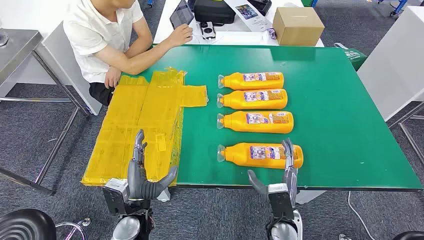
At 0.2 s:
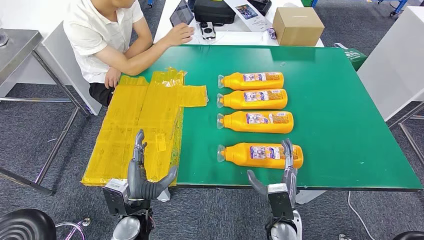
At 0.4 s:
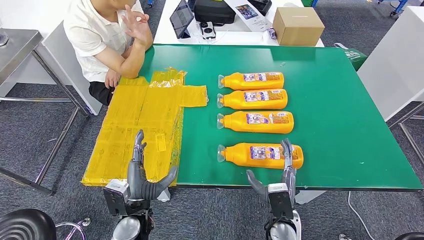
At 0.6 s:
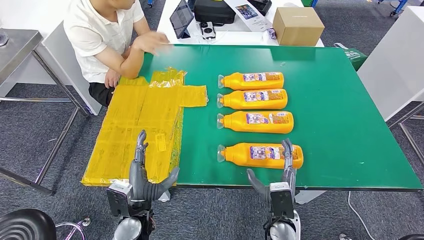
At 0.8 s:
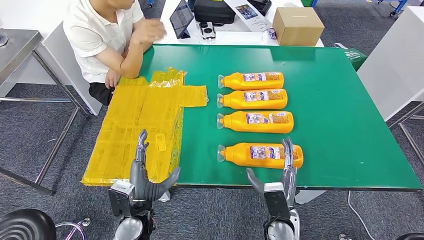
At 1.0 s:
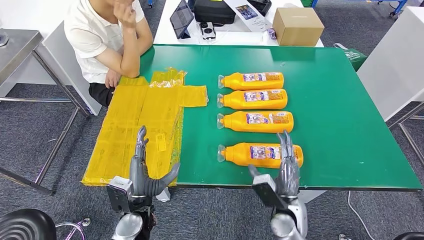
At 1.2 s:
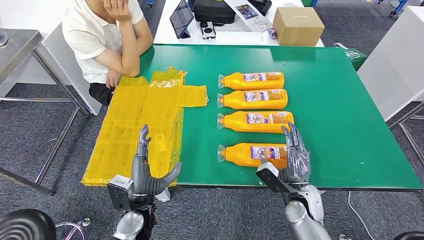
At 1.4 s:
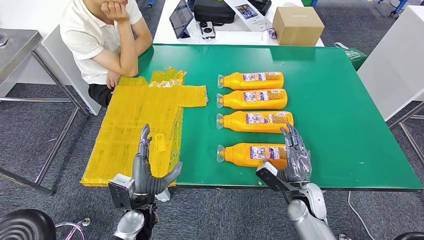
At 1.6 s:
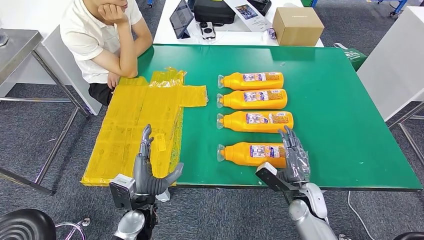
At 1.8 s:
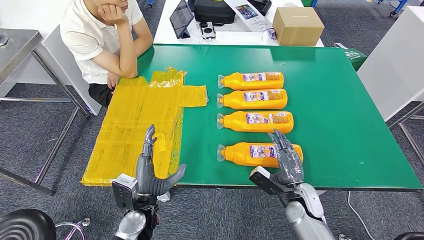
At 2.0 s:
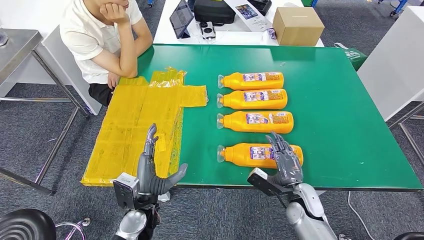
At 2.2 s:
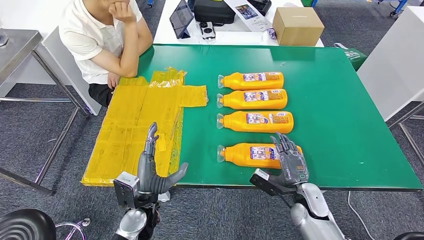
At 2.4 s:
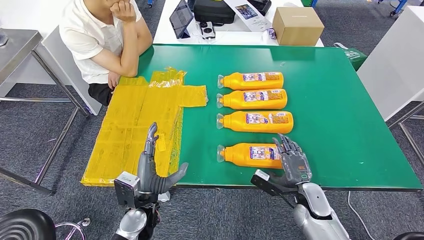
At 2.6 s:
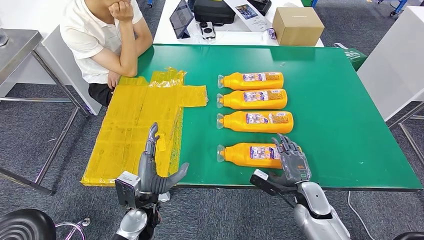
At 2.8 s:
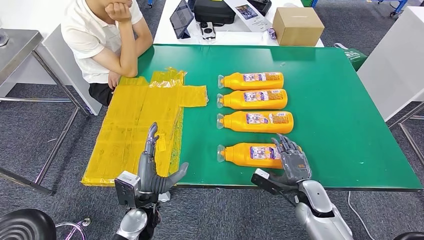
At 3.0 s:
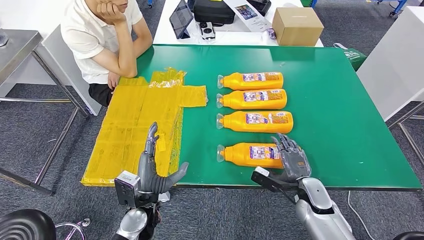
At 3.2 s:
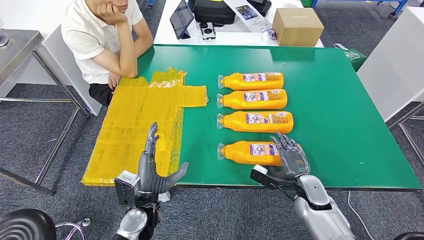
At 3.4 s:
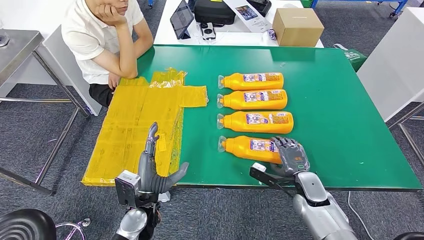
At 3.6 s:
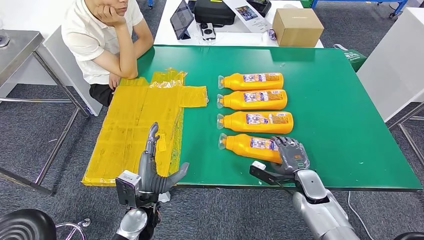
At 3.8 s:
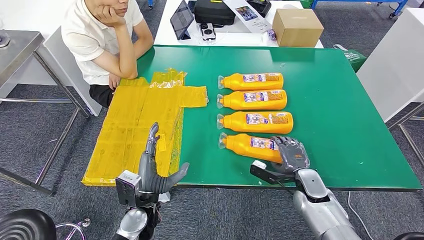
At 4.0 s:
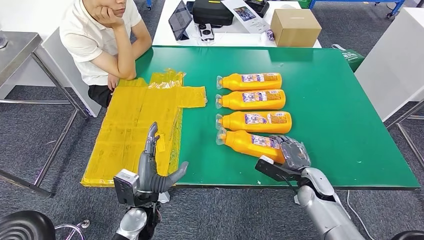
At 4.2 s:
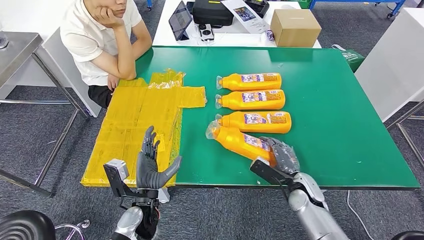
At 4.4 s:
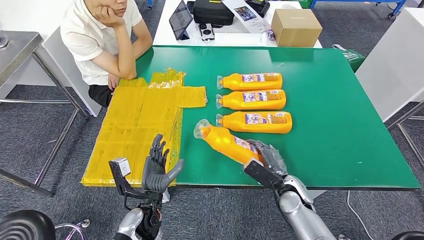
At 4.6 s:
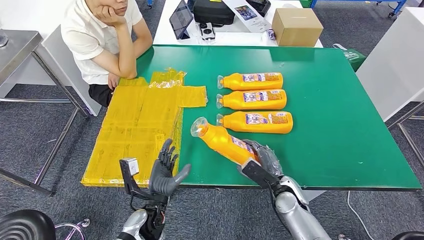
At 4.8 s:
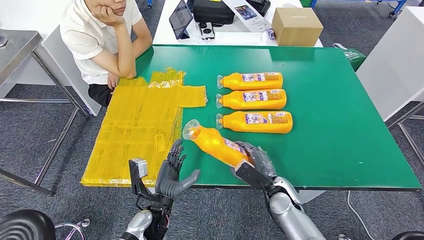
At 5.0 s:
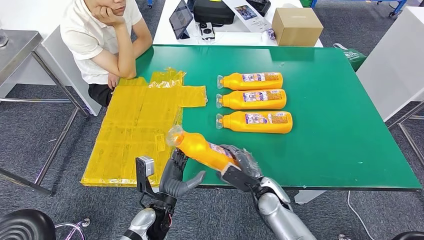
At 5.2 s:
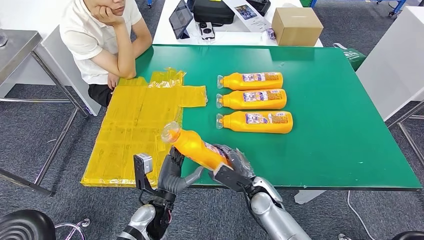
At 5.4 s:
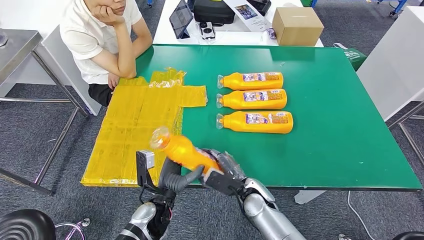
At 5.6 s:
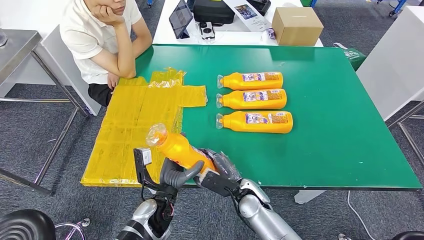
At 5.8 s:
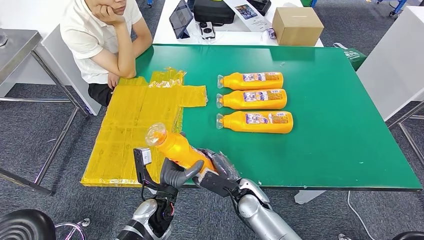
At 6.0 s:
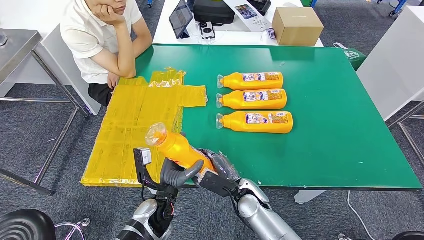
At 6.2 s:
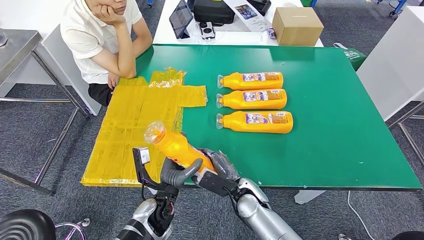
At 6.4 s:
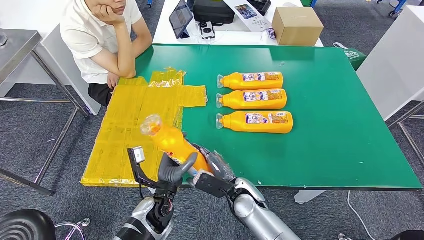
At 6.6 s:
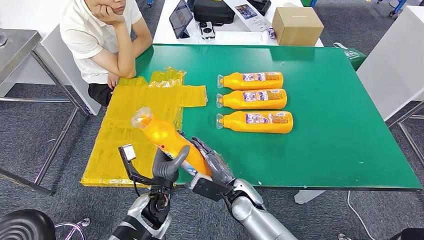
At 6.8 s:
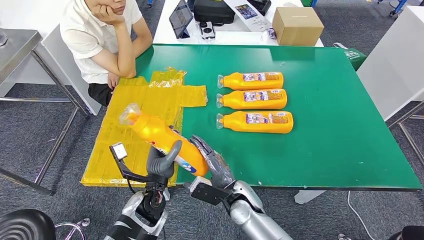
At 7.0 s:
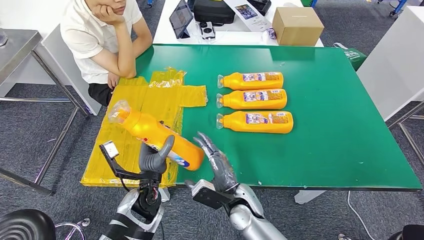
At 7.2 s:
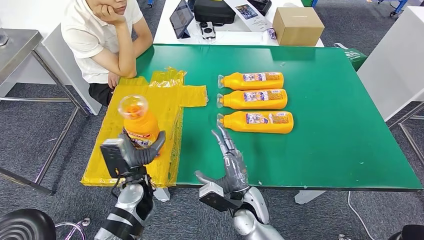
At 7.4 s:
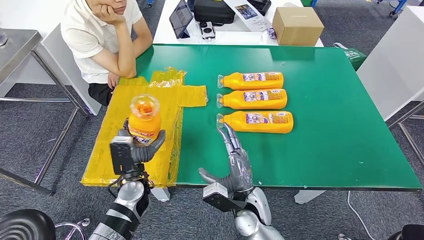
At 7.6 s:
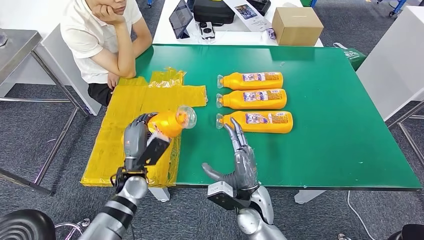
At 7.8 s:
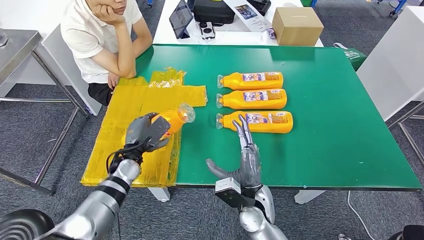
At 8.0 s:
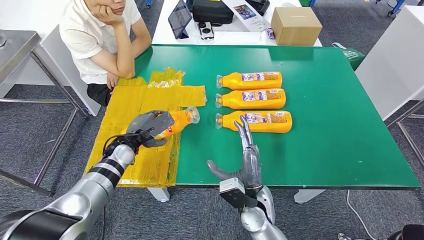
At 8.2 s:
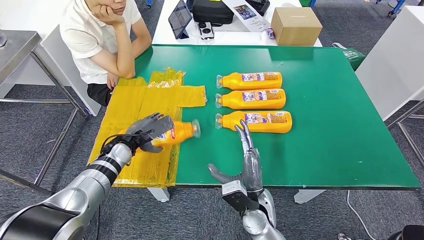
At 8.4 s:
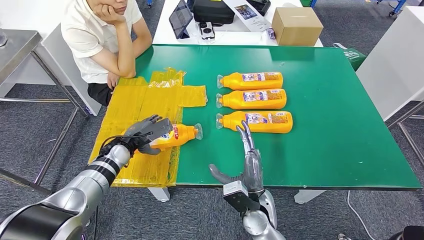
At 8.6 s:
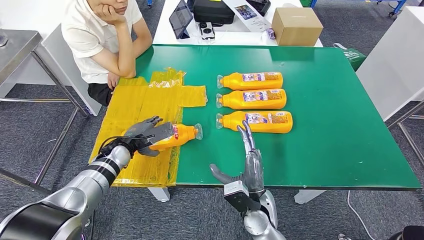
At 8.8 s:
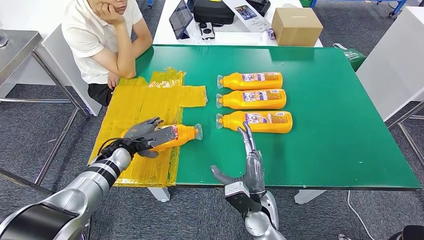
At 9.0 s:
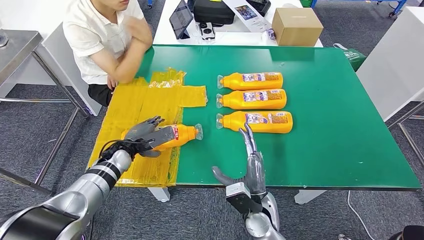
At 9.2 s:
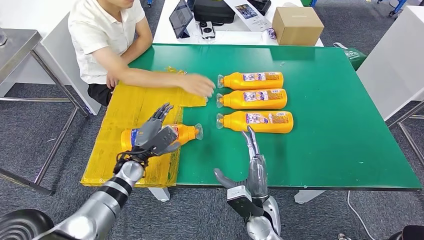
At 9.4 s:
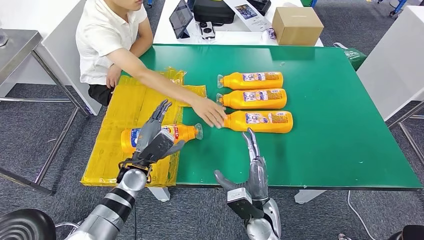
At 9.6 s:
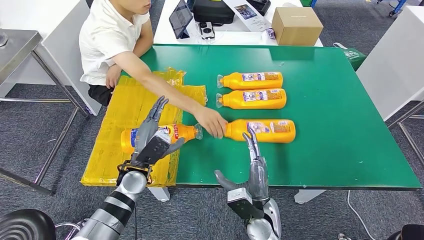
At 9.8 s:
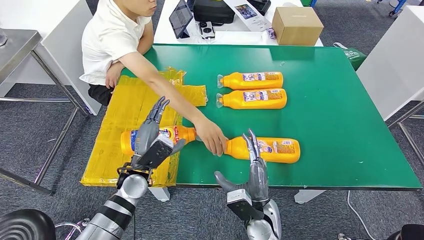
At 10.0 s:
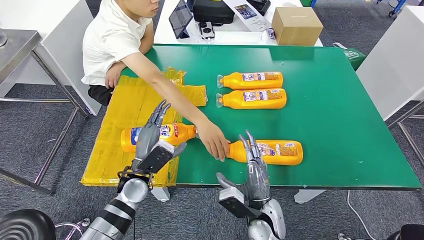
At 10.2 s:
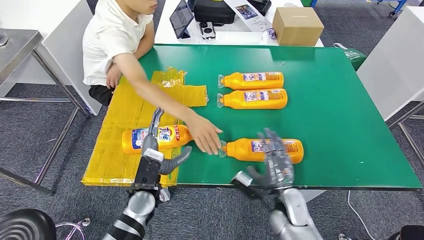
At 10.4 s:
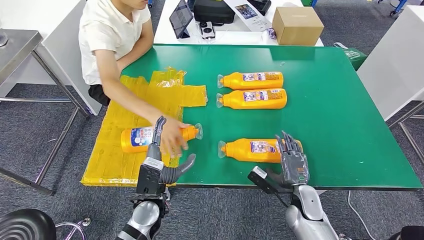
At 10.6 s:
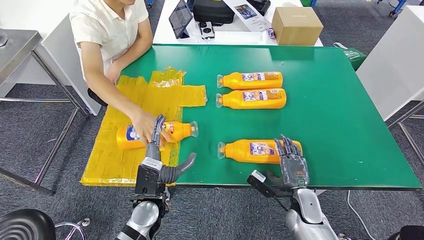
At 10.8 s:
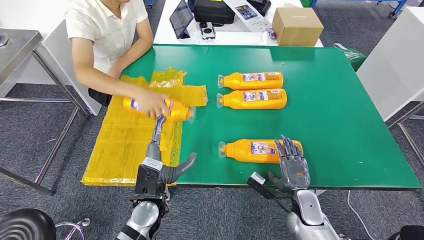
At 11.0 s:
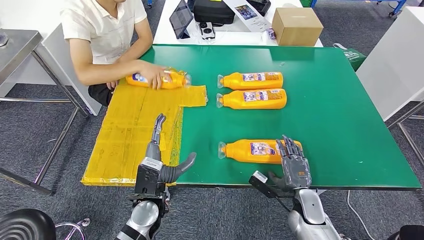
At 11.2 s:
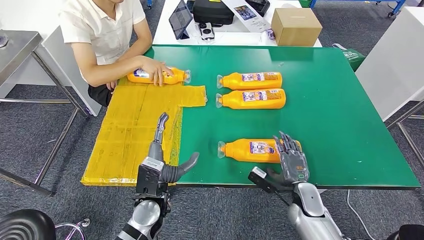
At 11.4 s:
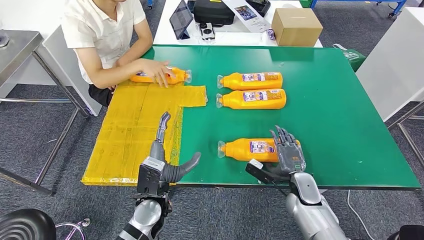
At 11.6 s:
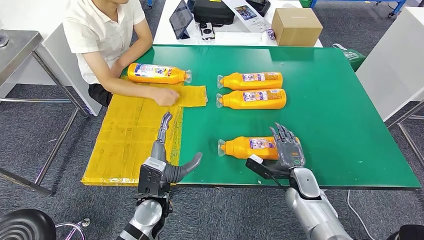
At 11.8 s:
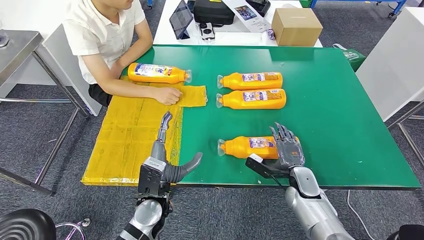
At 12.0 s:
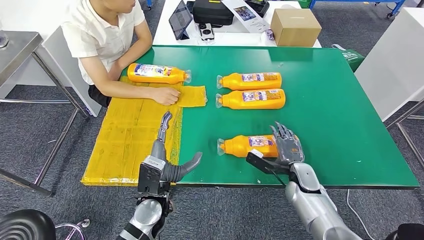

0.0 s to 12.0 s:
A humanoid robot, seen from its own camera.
Step, 0.0 to 5.8 s: Take the fast-moving consumer goods bottle from the table.
Step, 6.0 to 9.4 s: Flip the fast-moving consumer goods bottle to the front side.
3.0 to 4.4 s: The right hand travels to the left by approximately 5 cm.
4.4 to 6.0 s: The right hand heads to the left, covering some 15 cm.
6.0 to 7.6 s: The left hand goes approximately 10 cm to the left and forward; the right hand shifts by approximately 5 cm.
7.6 to 9.0 s: The left hand goes roughly 10 cm forward and to the left.

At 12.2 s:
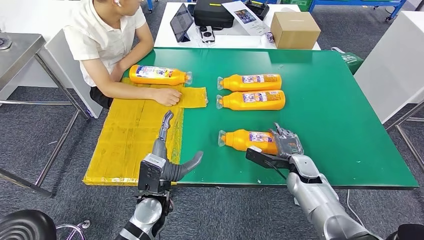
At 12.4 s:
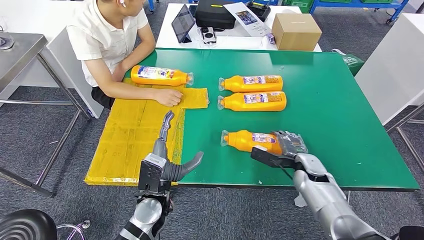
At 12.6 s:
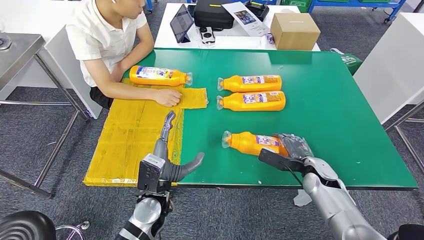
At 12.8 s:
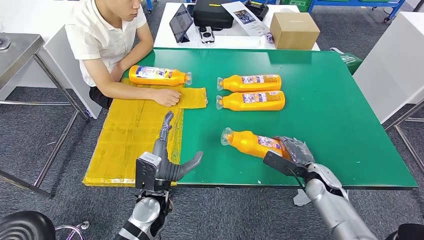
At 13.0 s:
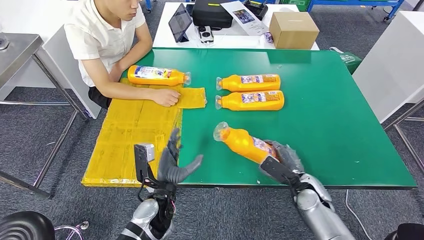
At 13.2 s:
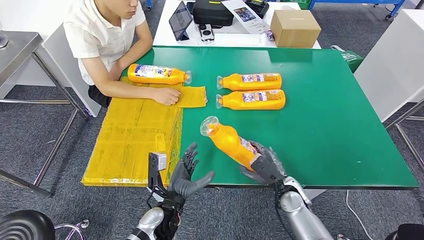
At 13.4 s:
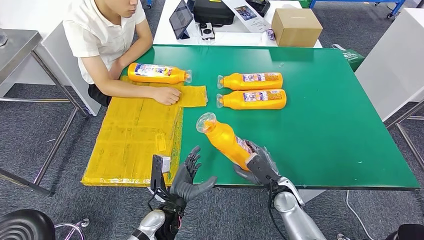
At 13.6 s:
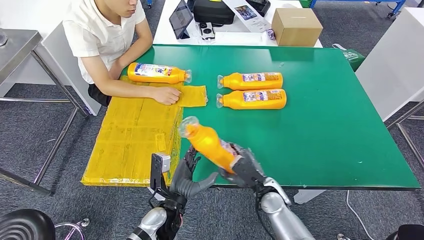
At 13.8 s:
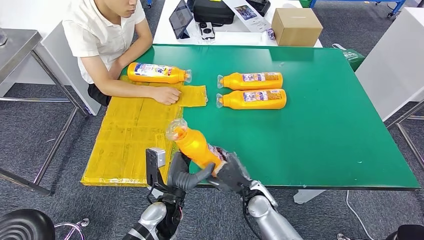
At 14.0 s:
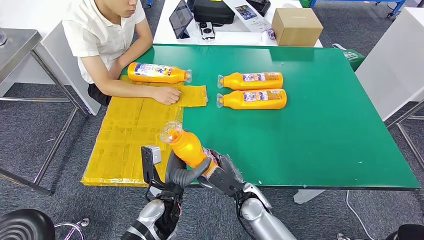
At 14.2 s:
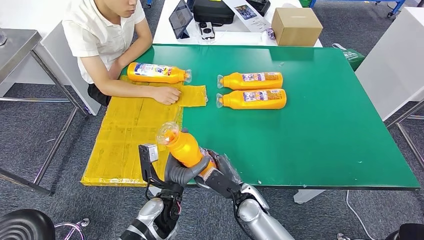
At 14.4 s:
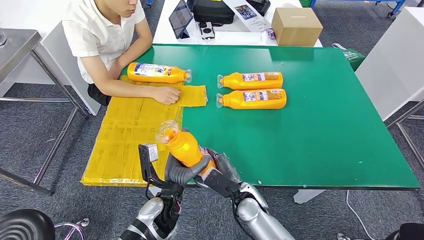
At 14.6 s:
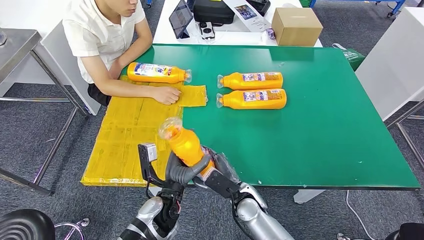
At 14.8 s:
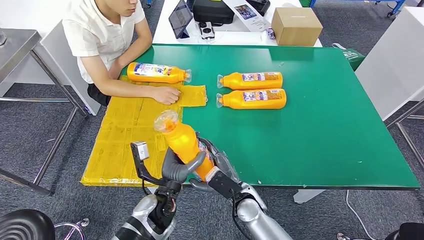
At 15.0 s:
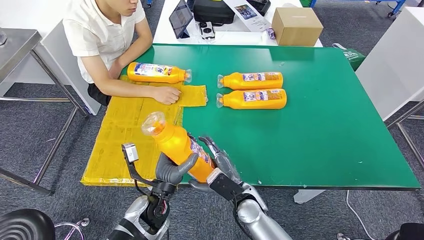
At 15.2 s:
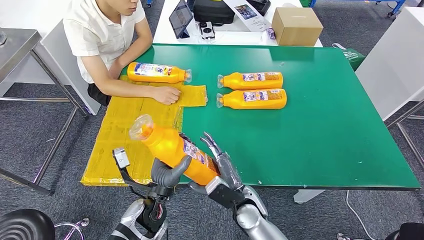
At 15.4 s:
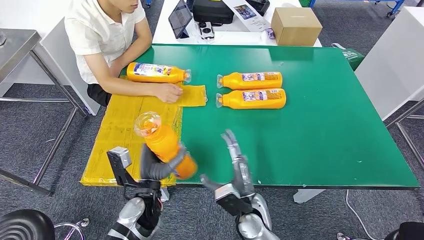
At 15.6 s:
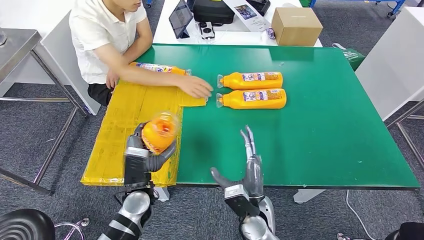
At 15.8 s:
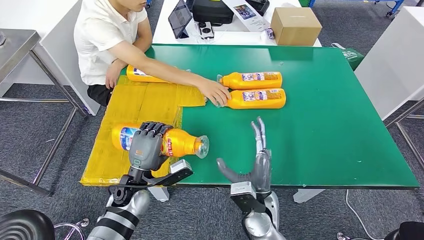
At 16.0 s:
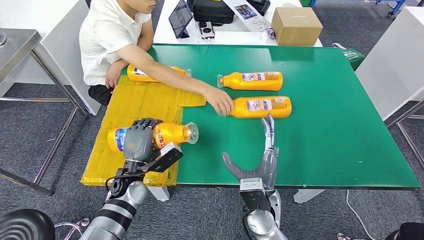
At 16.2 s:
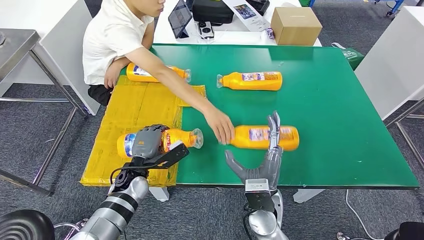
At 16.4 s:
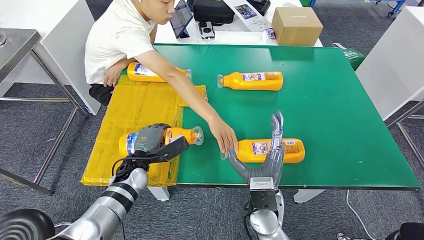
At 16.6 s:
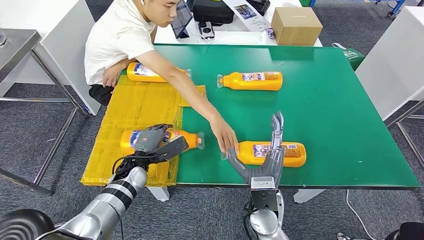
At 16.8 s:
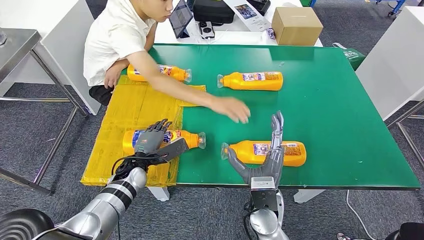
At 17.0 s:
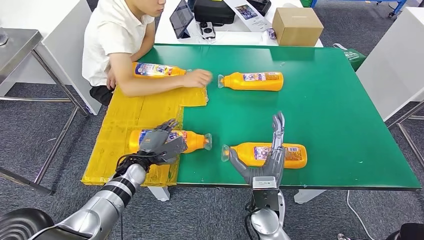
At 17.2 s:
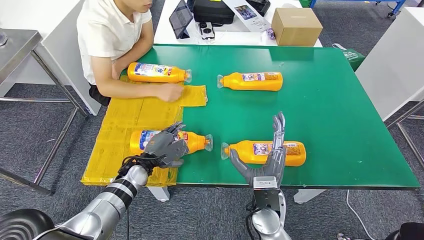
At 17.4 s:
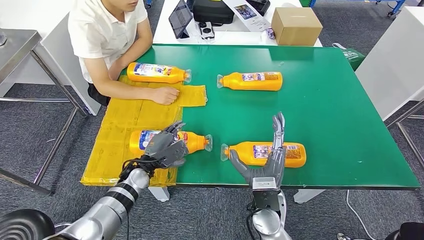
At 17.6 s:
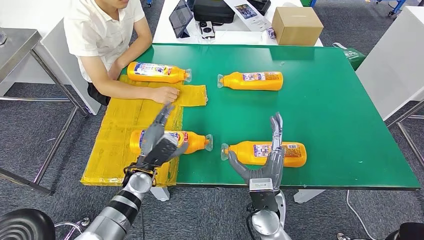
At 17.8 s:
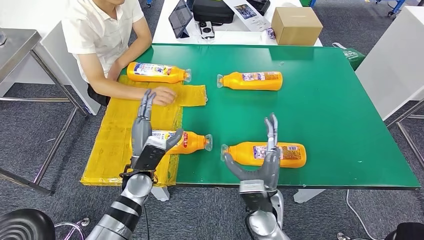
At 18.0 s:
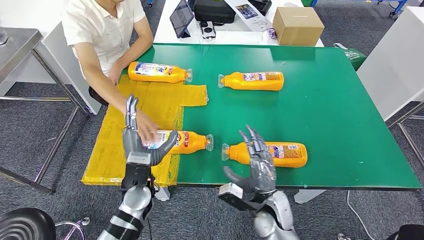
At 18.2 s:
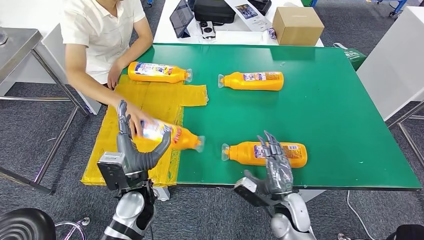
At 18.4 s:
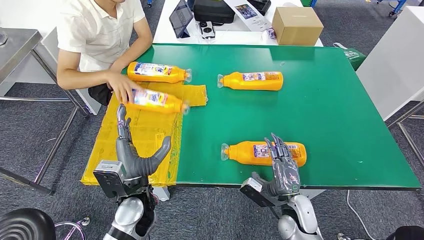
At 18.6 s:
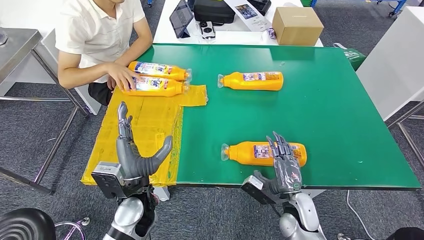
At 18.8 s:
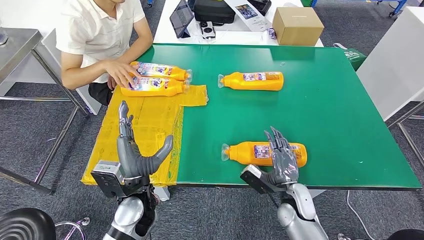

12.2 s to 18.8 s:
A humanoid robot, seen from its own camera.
Step, 12.2 to 14.8 s: Pick up the fast-moving consumer goods bottle from the table.
Step, 15.0 to 17.6 s: Flip the fast-moving consumer goods bottle to the front side.
13.8 to 15.4 s: The right hand ends up roughly 5 cm from where it was. The left hand is displaced to the left by roughly 5 cm.
15.4 to 17.2 s: The right hand travels upward by roughly 5 cm, while the left hand travels forward and to the left by about 10 cm.
